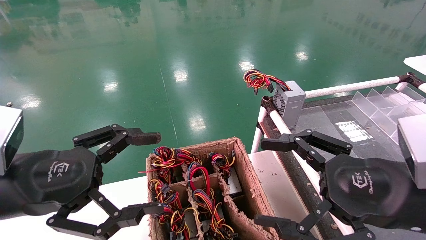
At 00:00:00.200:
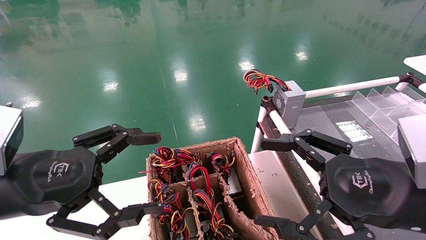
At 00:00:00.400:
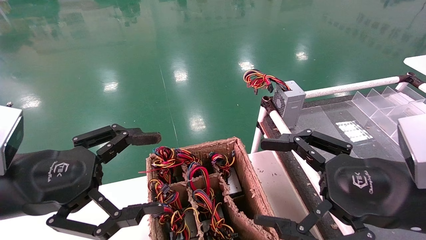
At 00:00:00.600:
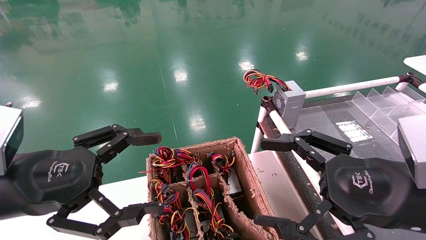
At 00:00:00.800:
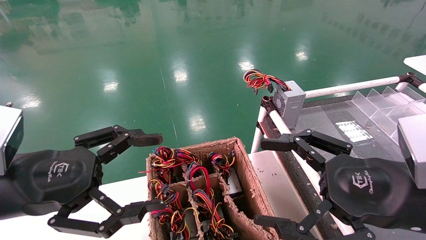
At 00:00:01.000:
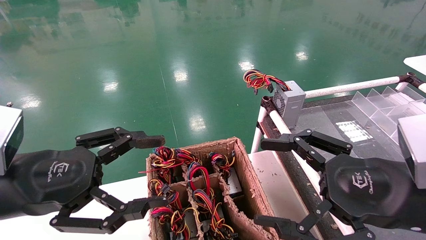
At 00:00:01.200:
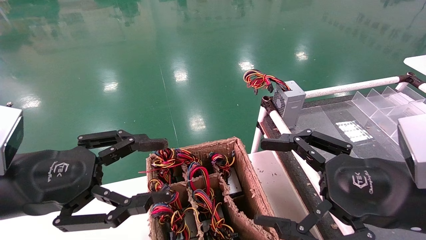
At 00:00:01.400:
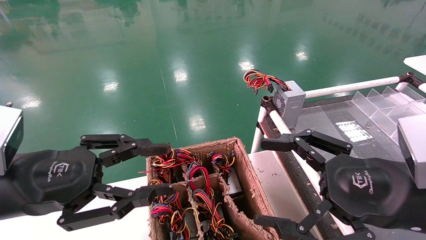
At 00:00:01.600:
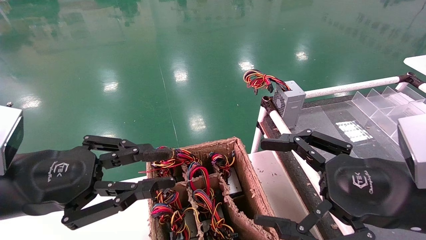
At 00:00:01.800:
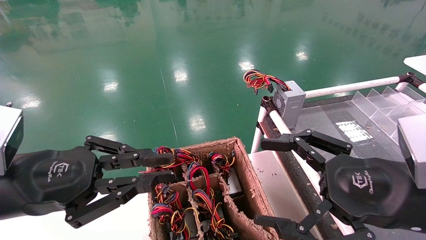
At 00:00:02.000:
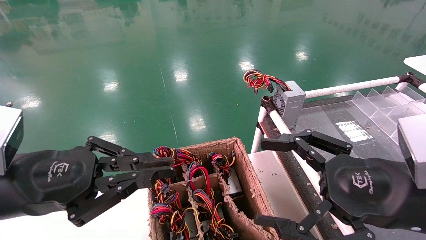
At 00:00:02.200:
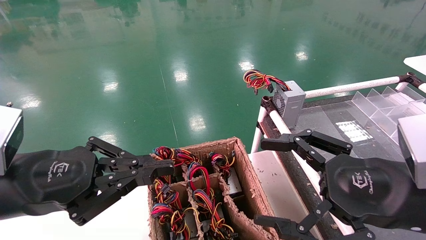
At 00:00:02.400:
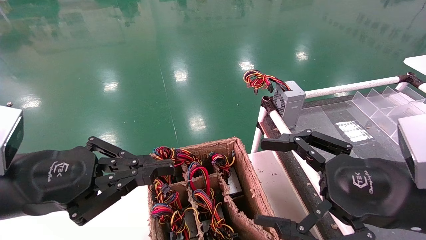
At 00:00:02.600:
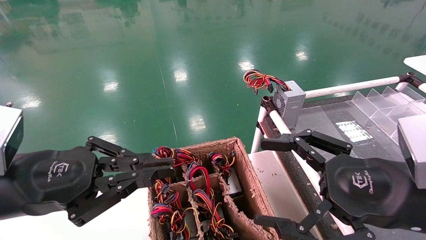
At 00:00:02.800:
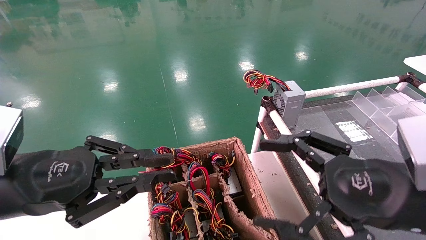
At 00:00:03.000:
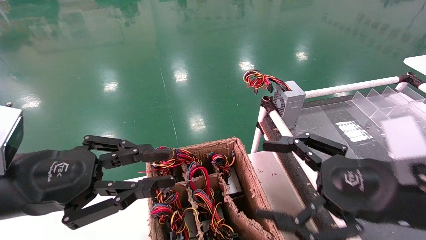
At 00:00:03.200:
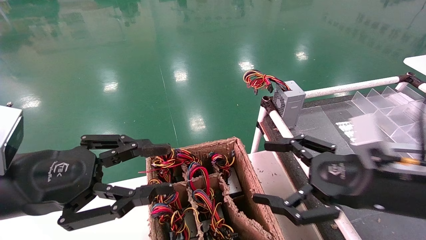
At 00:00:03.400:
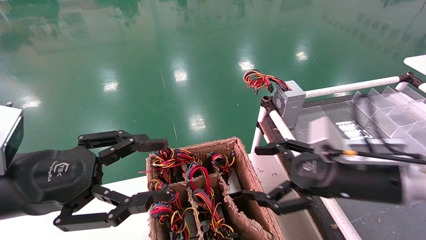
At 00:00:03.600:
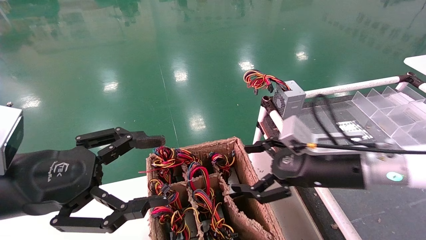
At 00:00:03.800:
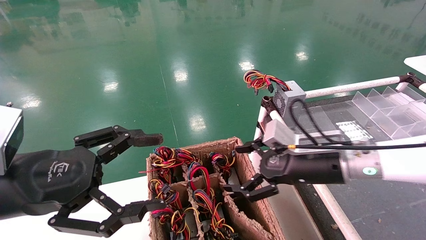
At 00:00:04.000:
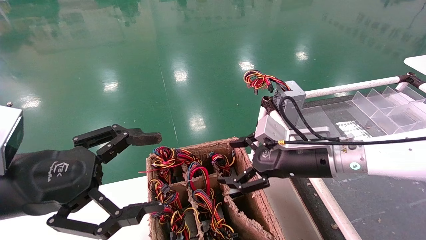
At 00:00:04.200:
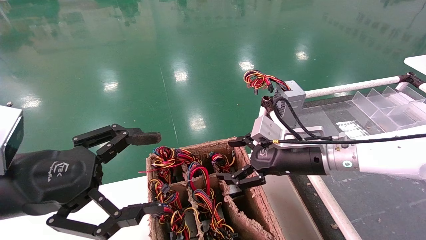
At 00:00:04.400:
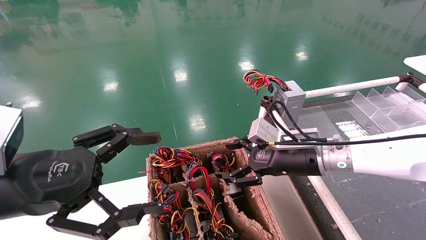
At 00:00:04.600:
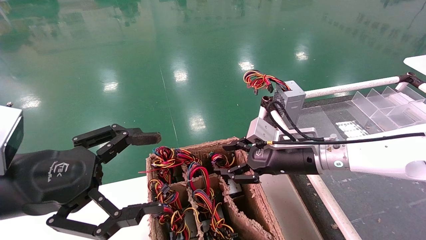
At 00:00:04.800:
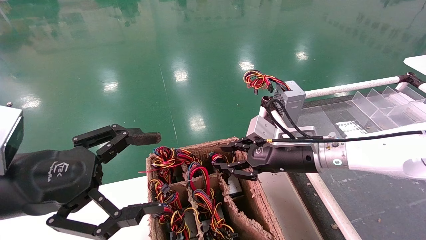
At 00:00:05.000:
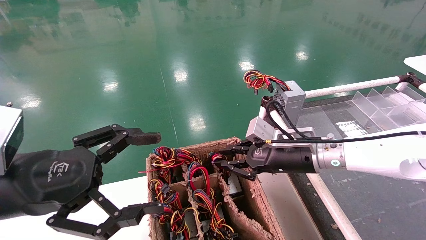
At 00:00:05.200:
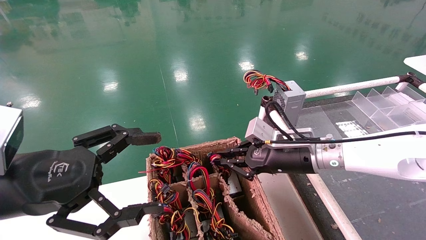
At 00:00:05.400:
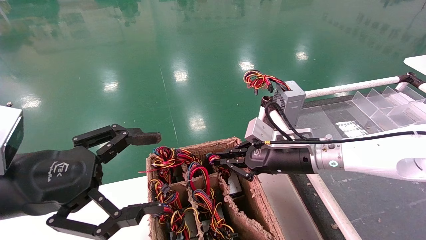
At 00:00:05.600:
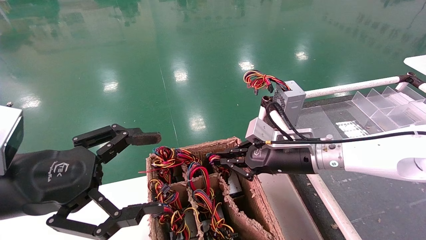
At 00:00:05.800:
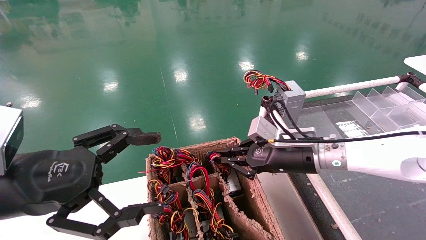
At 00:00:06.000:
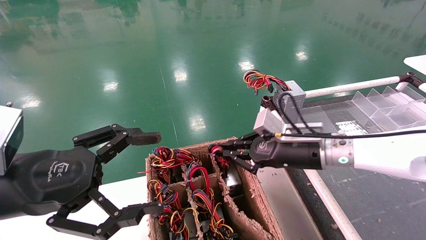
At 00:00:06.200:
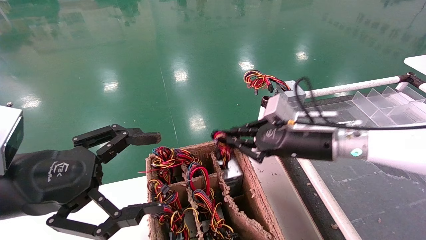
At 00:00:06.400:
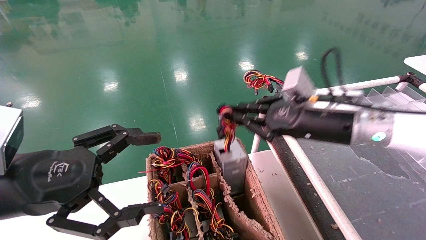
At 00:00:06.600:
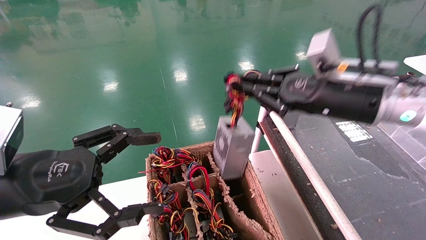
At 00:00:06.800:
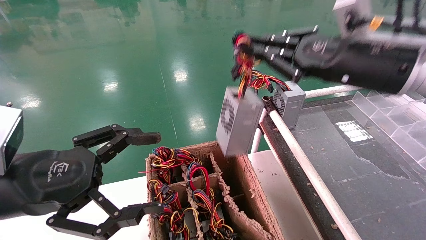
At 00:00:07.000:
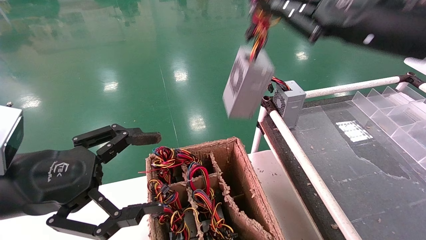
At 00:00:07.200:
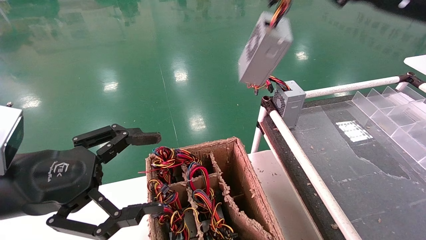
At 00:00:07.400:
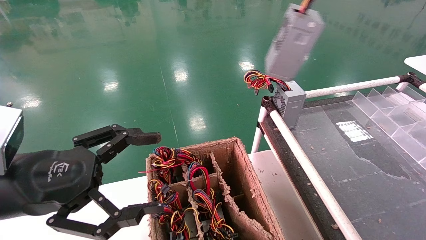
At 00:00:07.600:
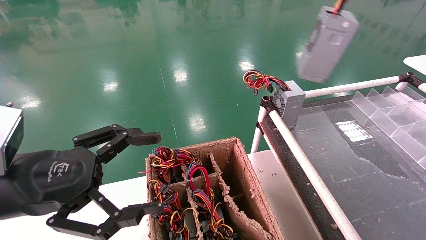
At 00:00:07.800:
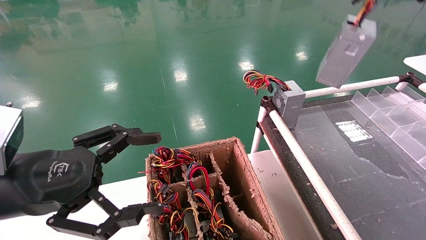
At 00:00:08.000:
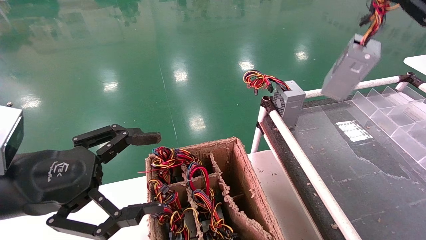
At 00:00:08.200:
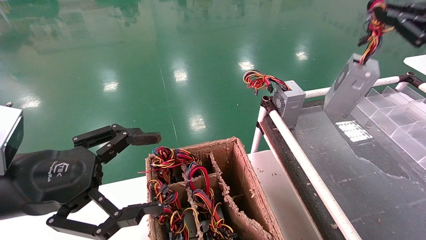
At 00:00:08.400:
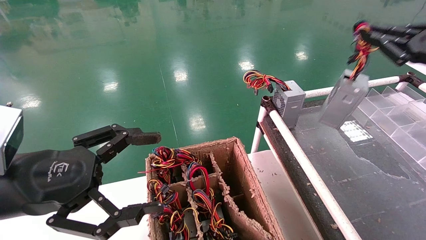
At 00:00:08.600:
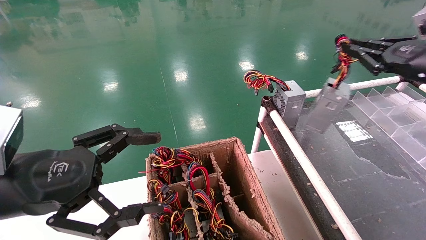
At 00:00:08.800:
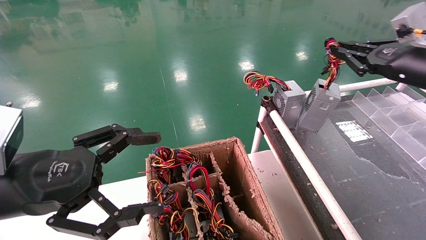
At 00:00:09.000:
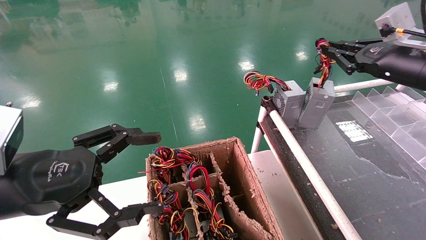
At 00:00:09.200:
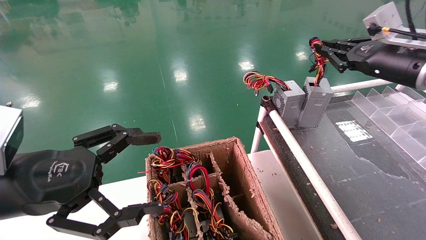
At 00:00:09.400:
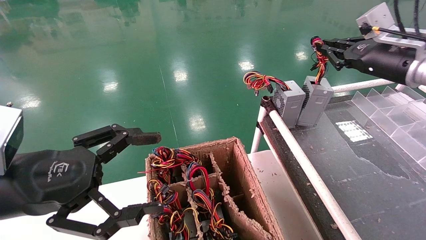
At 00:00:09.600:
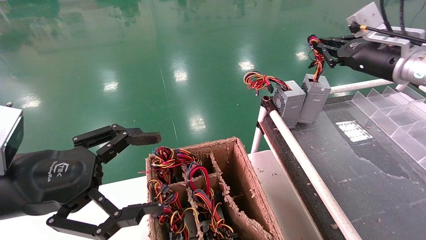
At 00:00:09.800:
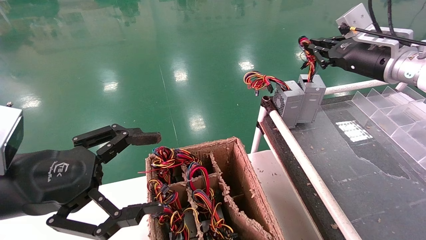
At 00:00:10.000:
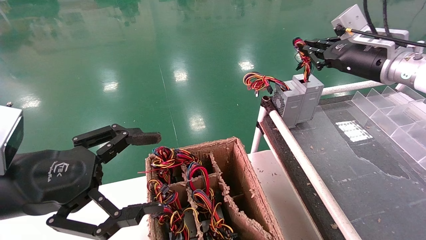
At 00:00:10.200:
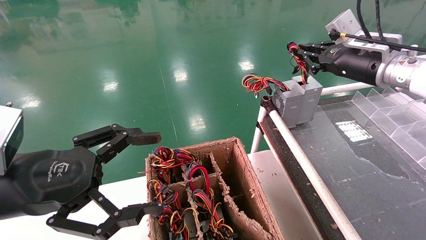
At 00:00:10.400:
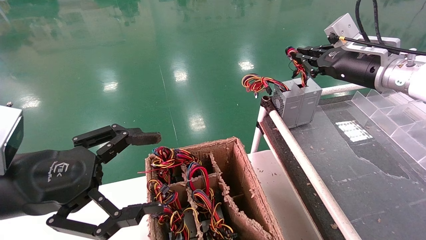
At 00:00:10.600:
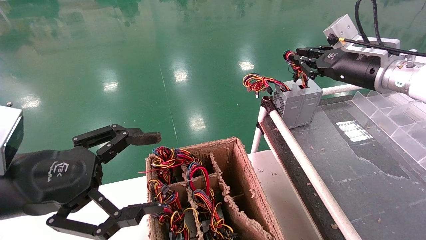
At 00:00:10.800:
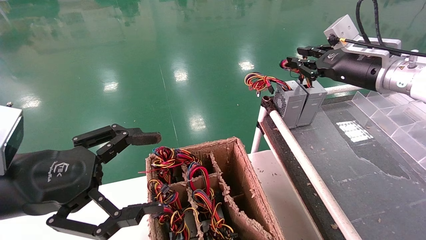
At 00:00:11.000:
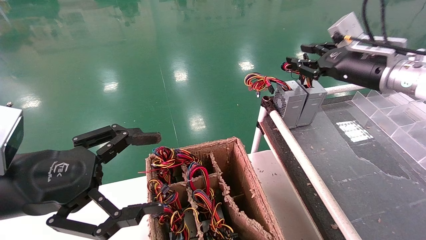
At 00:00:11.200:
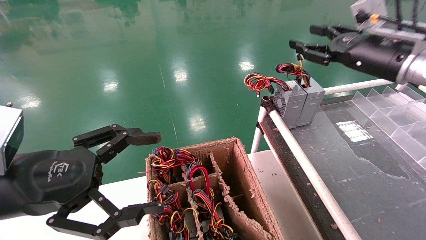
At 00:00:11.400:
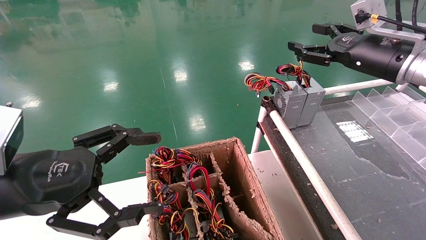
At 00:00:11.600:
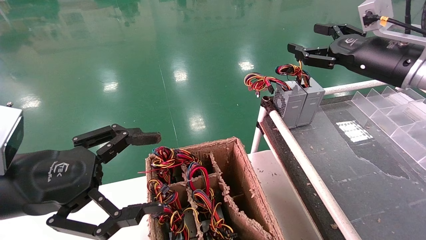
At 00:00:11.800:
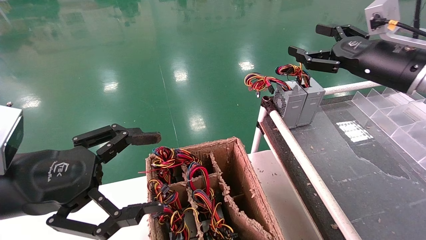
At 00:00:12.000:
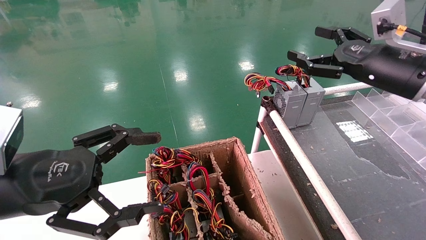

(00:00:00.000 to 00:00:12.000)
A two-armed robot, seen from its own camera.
Step, 00:00:02.000 - 00:00:05.400: Grab and lift the power supply from the large box.
Step, 00:00:05.600 - 00:00:11.000: Place the power supply on the operating table.
00:00:00.000 - 00:00:01.600: The left gripper closes its fingers.
00:00:01.600 - 00:00:03.000: There are only small adjustments of the grippers.
00:00:03.000 - 00:00:04.400: The right gripper shifts some 20 cm forward and to the left. Meanwhile the left gripper opens.
00:00:04.400 - 00:00:06.000: The right gripper closes up.
00:00:06.000 - 00:00:07.600: The right gripper goes some 30 cm upward and to the right.
00:00:07.600 - 00:00:09.000: The right gripper travels downward and forward by approximately 15 cm.
00:00:09.000 - 00:00:10.400: The right gripper is displaced to the left by approximately 5 cm.
00:00:10.400 - 00:00:12.000: The right gripper moves backward, some 5 cm, and opens.

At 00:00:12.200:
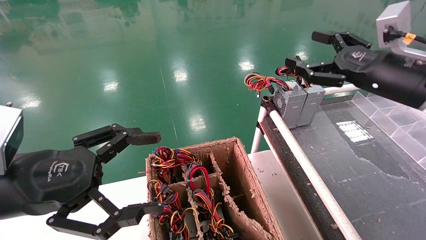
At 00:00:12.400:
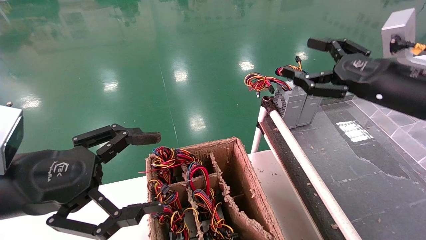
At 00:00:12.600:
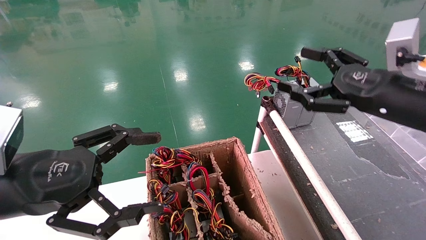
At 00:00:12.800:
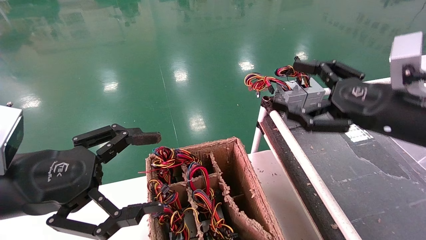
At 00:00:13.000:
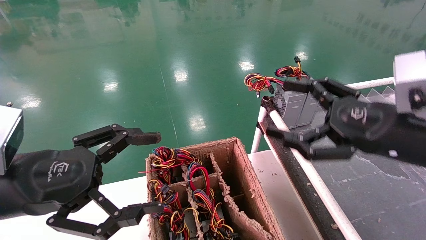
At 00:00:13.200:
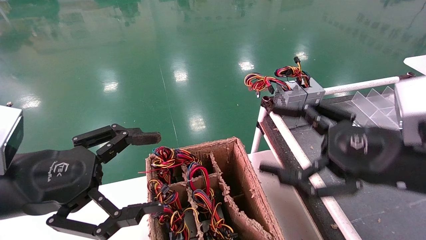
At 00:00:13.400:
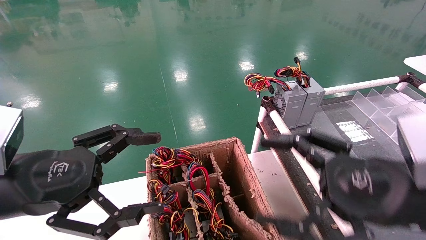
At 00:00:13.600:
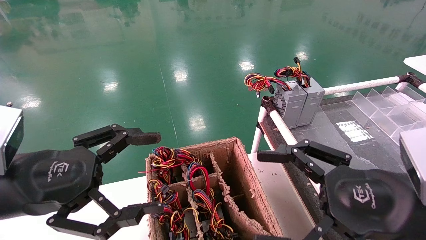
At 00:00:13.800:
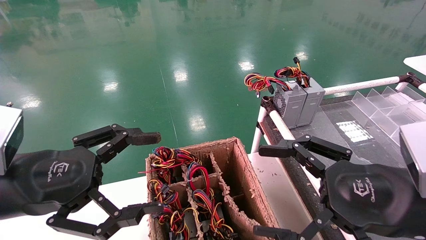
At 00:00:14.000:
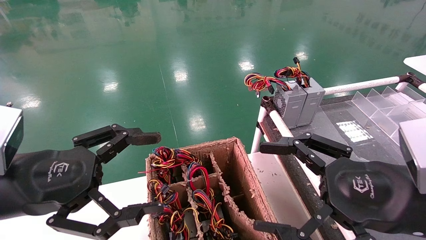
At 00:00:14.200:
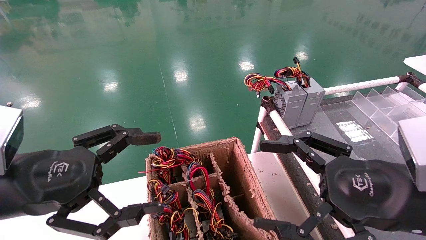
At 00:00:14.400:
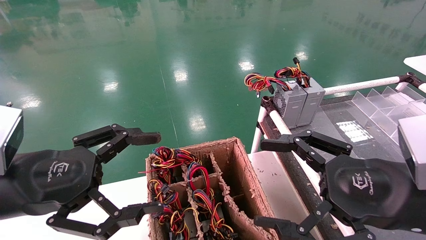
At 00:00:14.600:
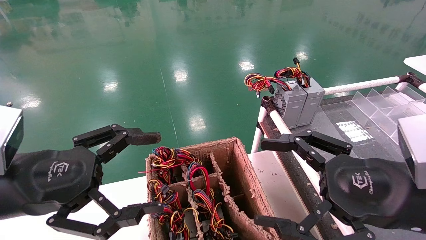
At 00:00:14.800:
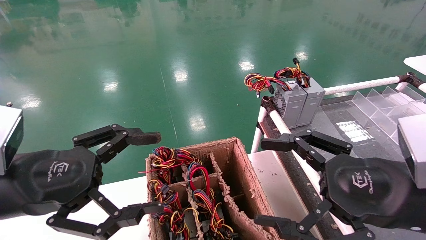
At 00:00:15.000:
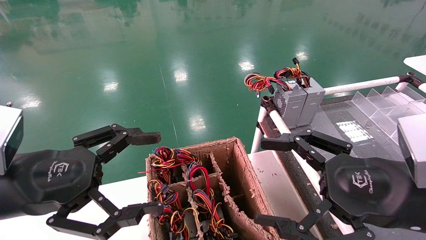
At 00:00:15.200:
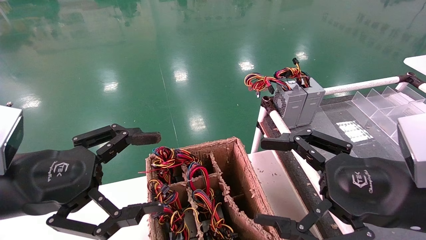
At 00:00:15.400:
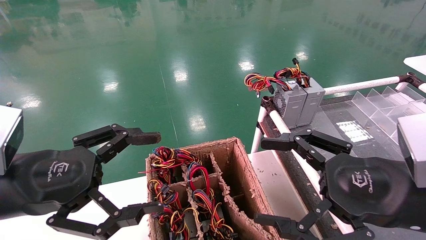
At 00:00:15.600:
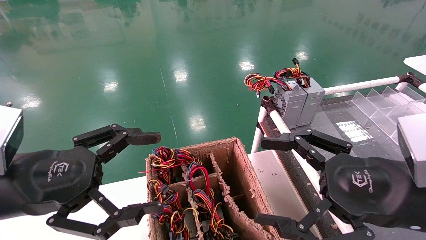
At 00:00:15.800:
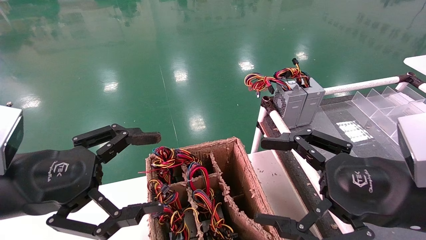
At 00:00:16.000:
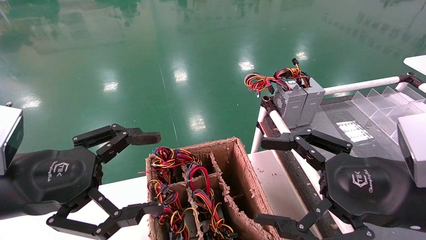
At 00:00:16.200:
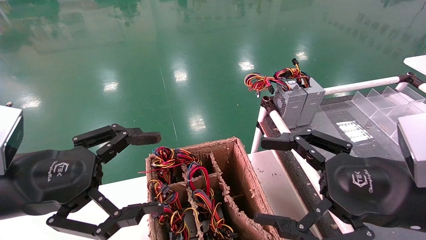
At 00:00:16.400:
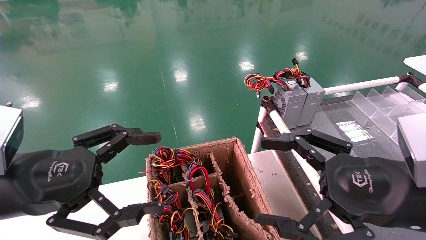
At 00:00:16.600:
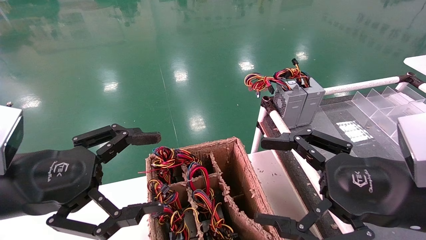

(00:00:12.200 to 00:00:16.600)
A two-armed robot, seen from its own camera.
00:00:12.200 - 00:00:13.600: The right gripper goes roughly 20 cm backward, downward and to the left.
00:00:13.600 - 00:00:16.600: Neither gripper changes place.
